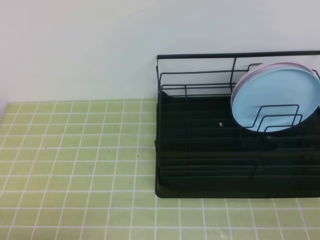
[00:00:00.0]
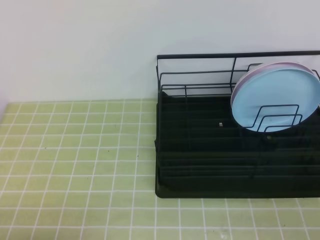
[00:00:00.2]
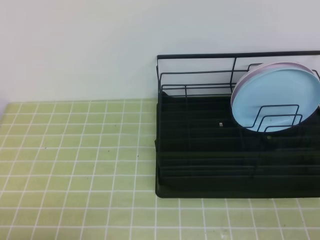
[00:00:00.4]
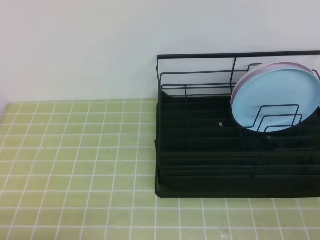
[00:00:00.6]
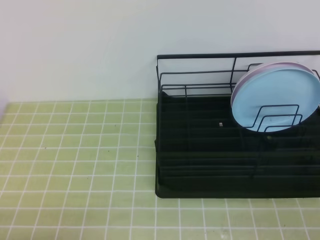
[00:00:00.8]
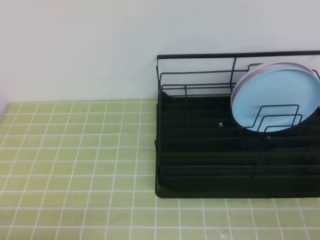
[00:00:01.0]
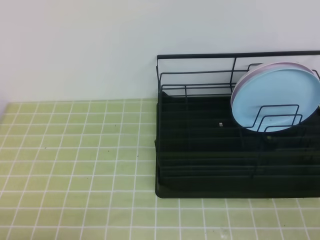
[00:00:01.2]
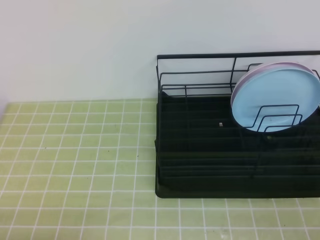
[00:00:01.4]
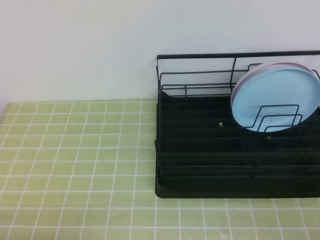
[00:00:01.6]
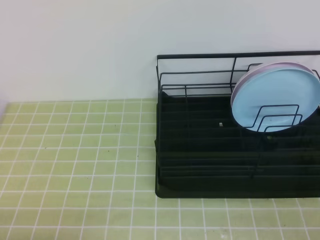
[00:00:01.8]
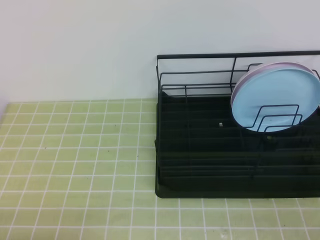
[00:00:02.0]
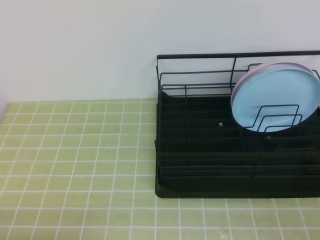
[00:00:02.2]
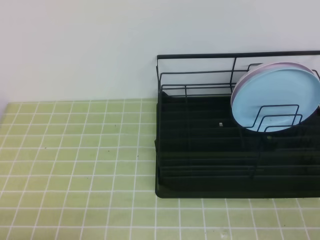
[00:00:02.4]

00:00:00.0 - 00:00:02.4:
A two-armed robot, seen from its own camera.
00:00:01.2 - 00:00:02.4: Neither gripper changes place.
